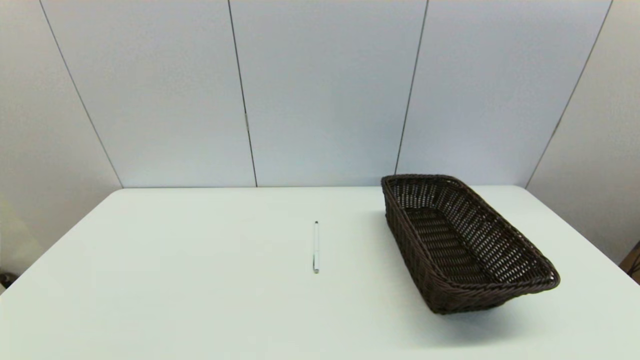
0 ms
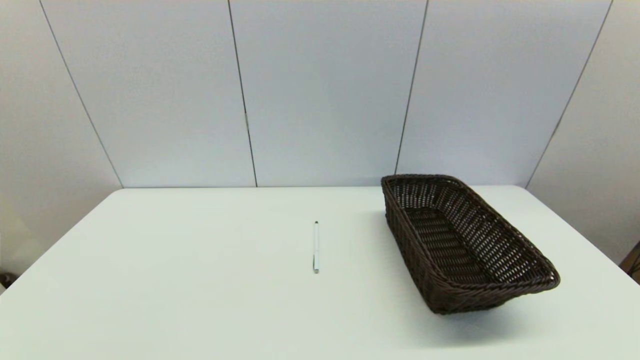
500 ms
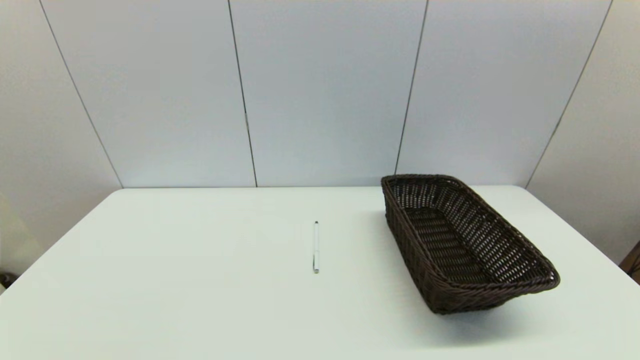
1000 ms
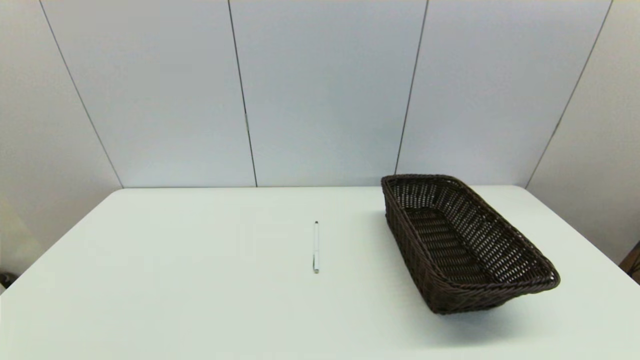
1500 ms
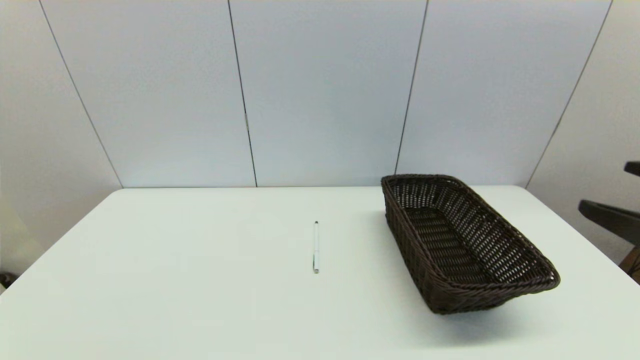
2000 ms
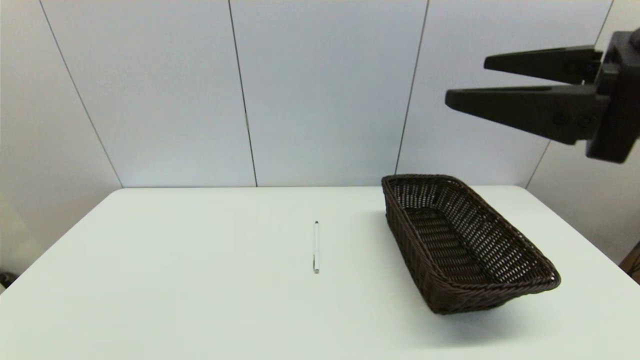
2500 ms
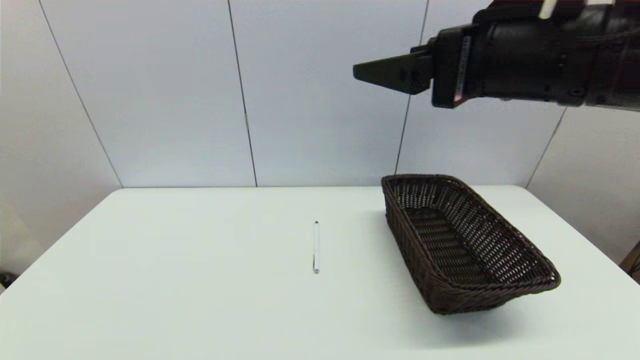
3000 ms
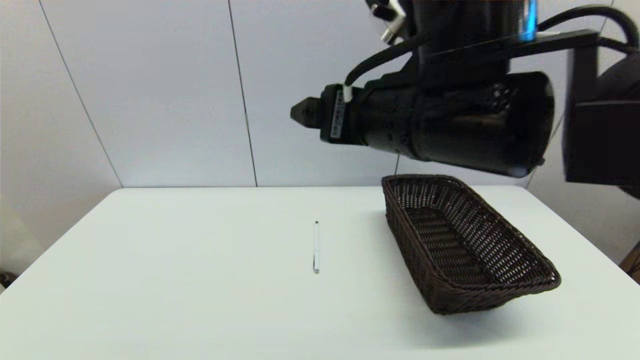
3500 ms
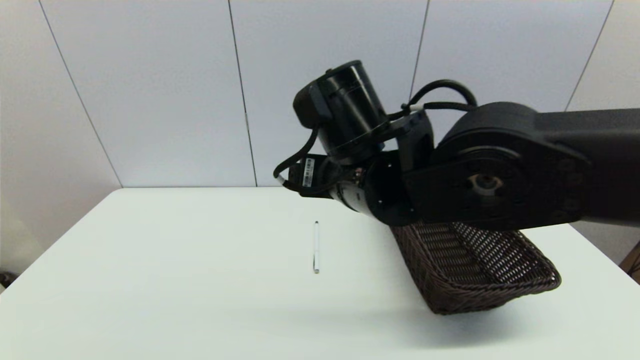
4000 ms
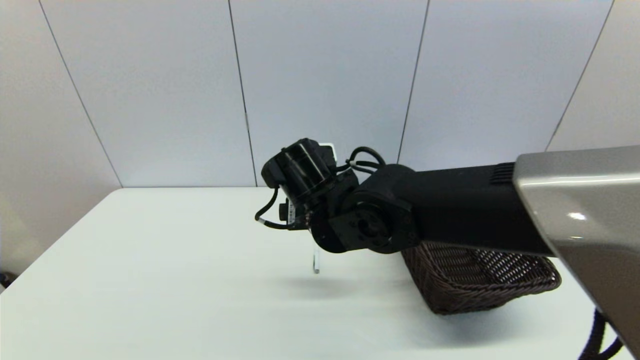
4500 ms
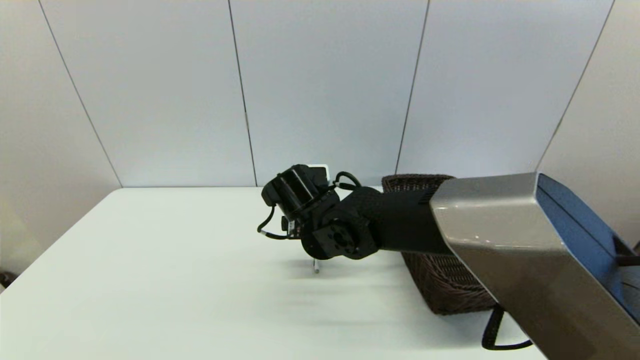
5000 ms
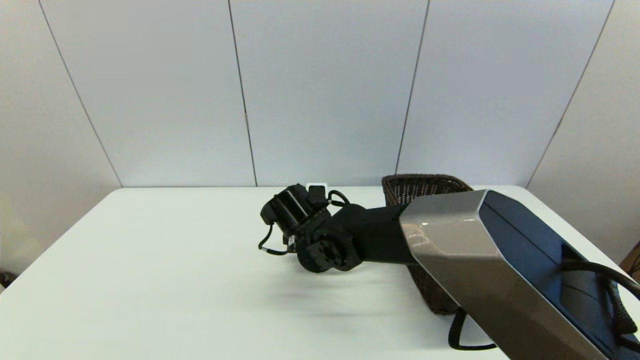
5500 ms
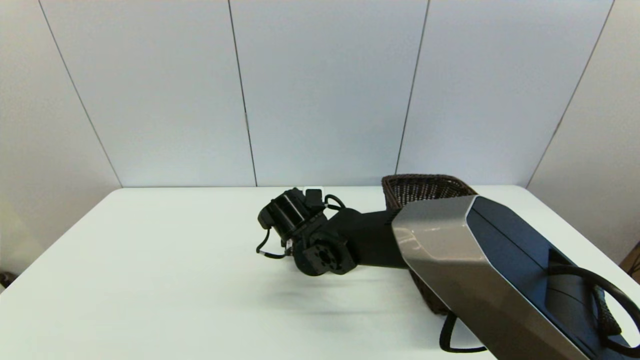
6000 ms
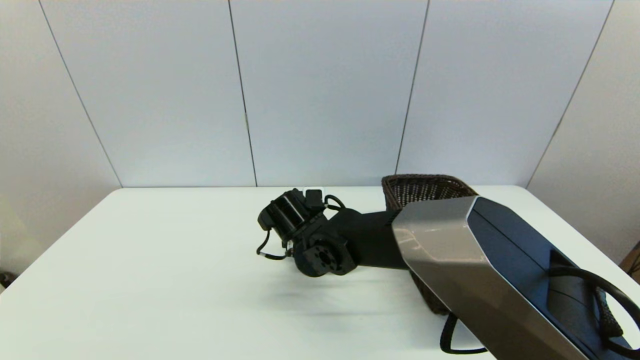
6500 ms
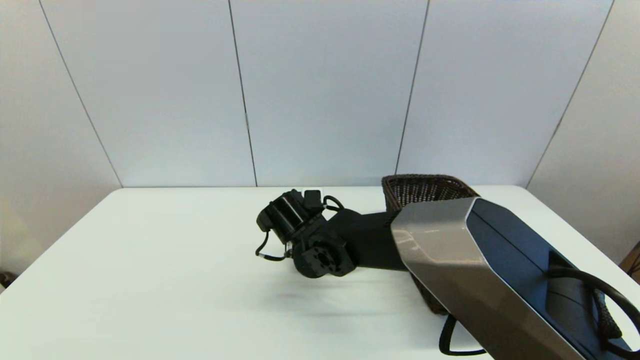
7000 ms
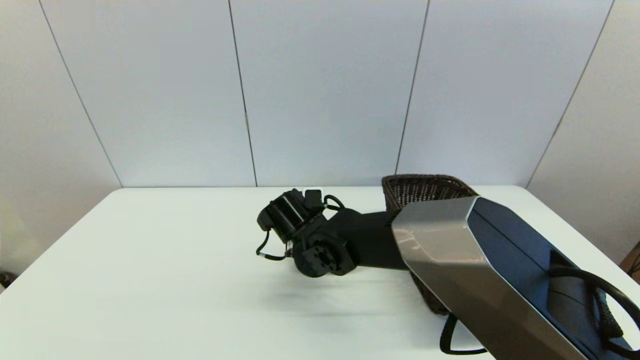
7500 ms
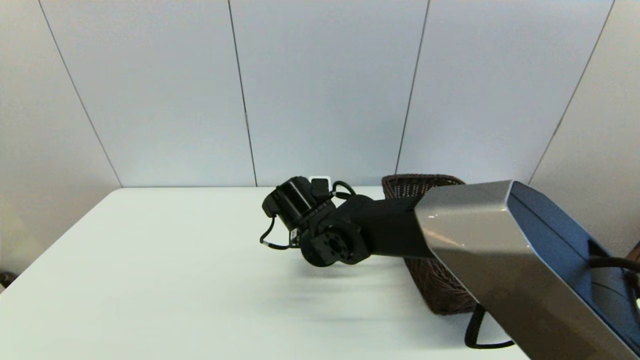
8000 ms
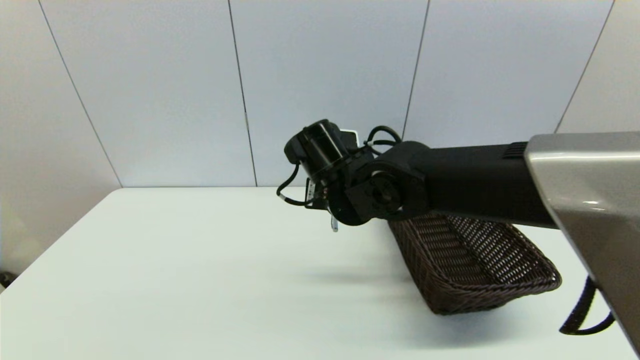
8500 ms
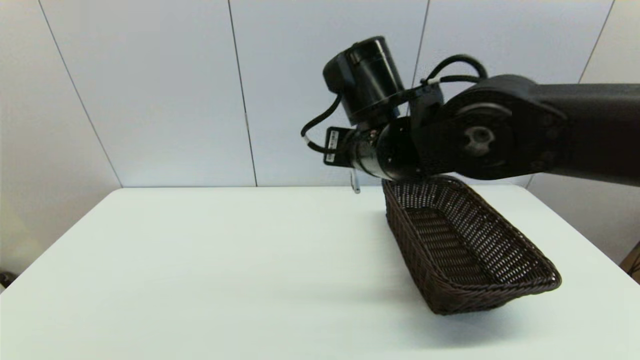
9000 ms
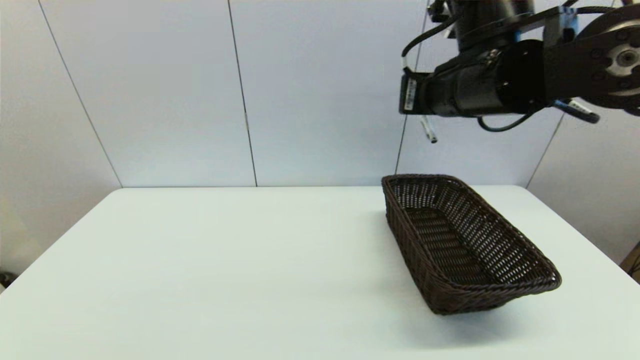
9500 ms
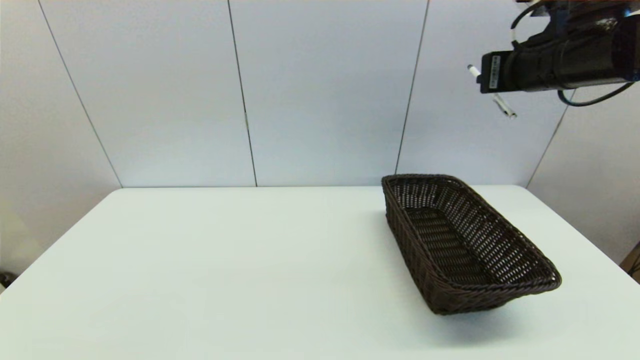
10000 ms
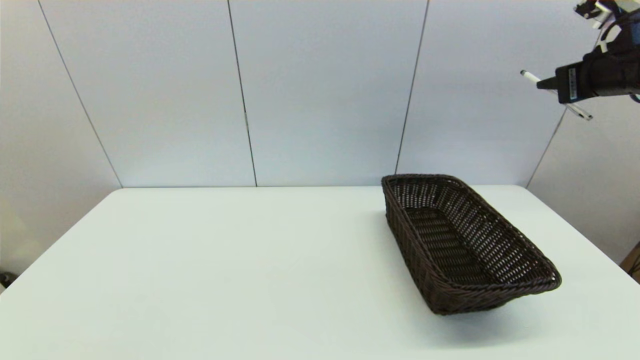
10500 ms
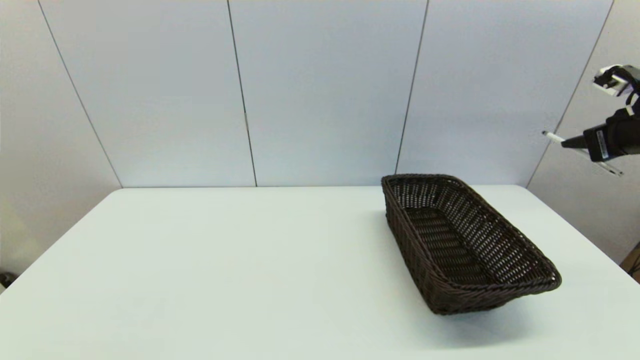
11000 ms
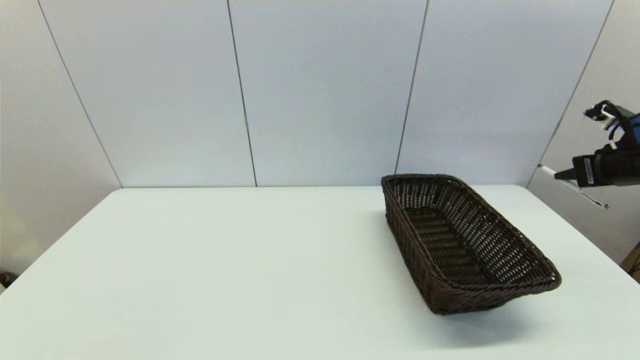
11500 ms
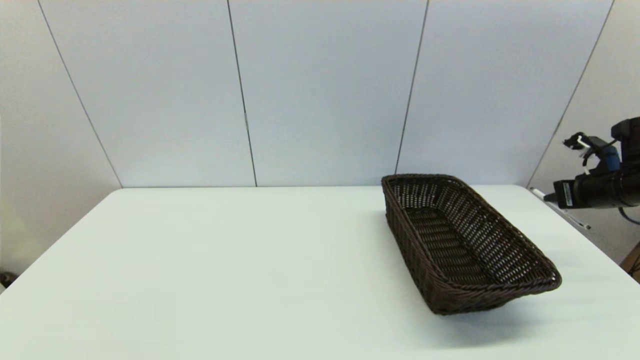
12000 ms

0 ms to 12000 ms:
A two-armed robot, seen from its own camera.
Task of the whole recording: put the pen in the designated position.
Step, 2000 ms to 7500 ms: Grasp the sign pen with right gripper.
0 ms to 2000 ms: The right gripper heads upward and forward, covering about 25 cm.
2000 ms to 4000 ms: The right gripper travels to the left and forward by some 30 cm.
4000 ms to 6000 ms: The right gripper shifts roughly 20 cm downward and forward.
6000 ms to 8000 ms: The right gripper closes up.
8000 ms to 10000 ms: The right gripper shifts roughly 35 cm to the right and upward.
10000 ms to 12000 ms: The right gripper is displaced to the right and downward by approximately 25 cm.

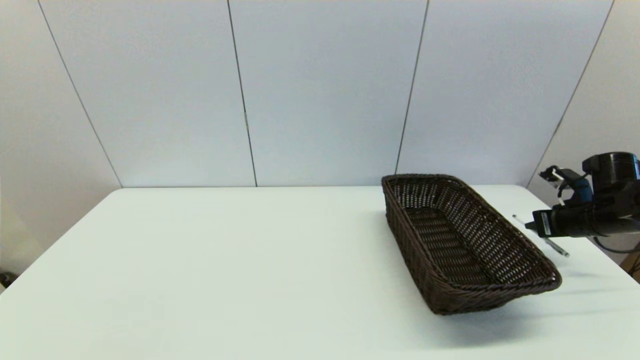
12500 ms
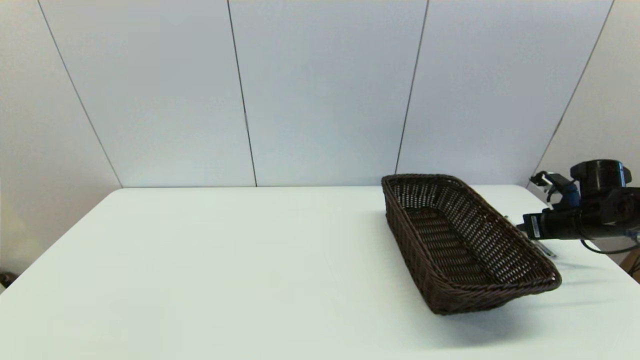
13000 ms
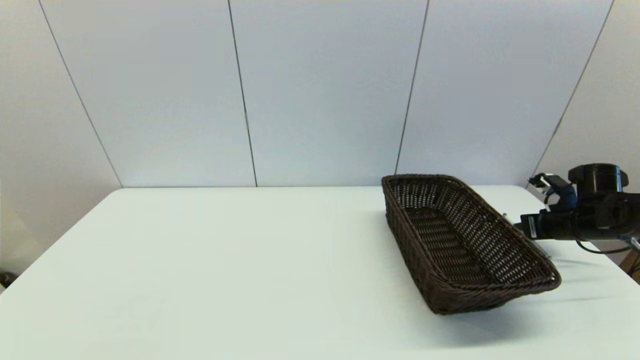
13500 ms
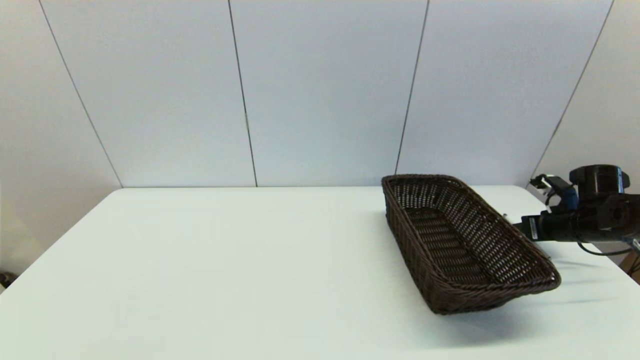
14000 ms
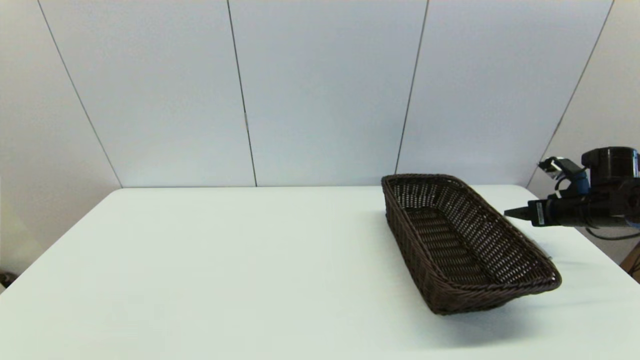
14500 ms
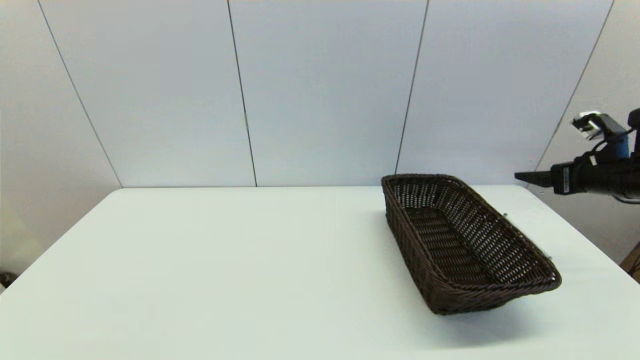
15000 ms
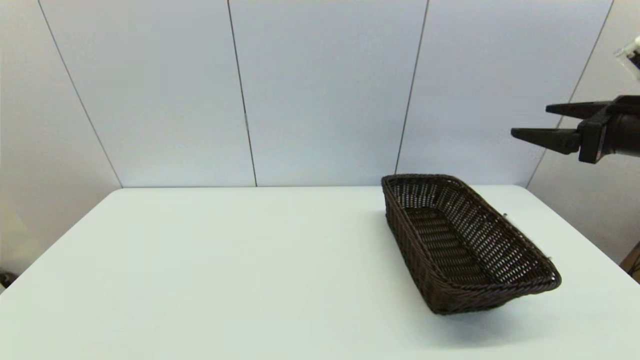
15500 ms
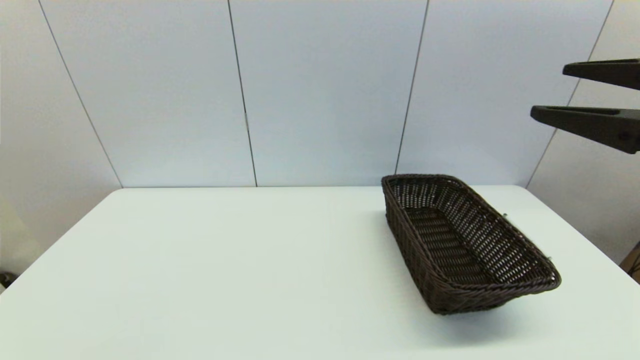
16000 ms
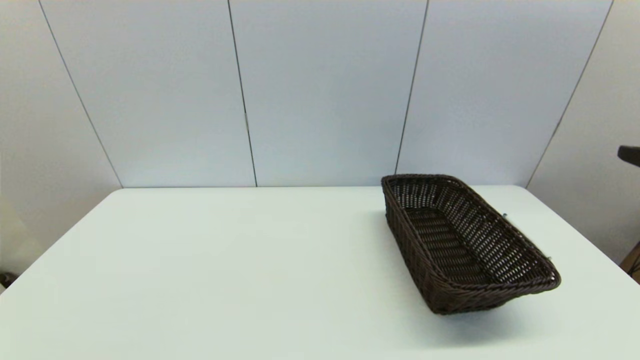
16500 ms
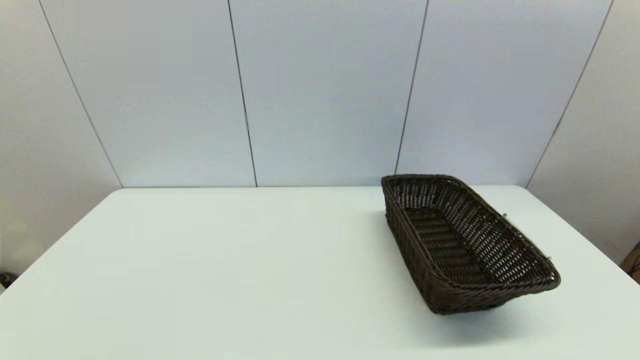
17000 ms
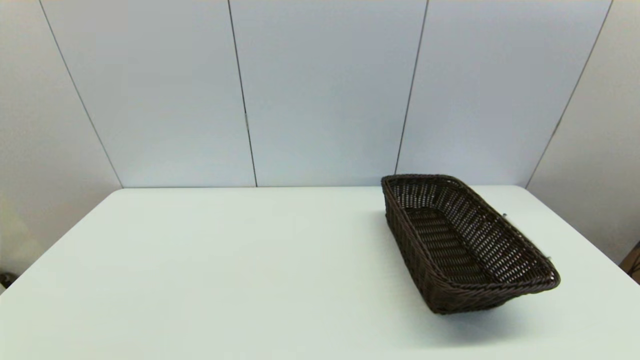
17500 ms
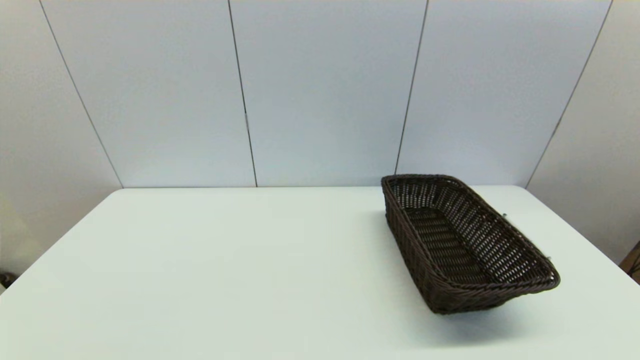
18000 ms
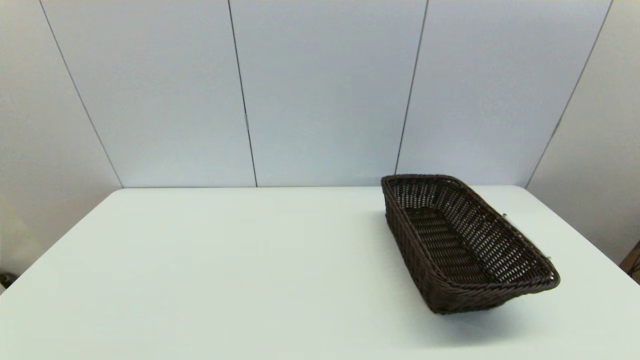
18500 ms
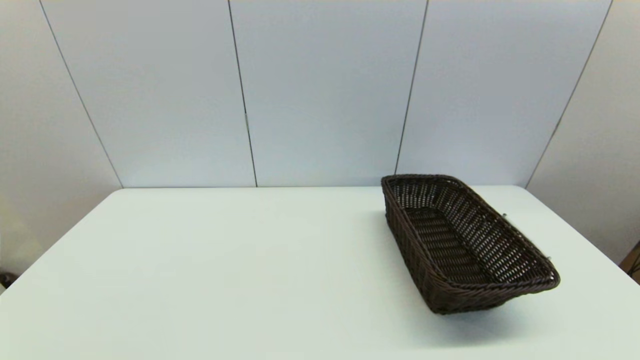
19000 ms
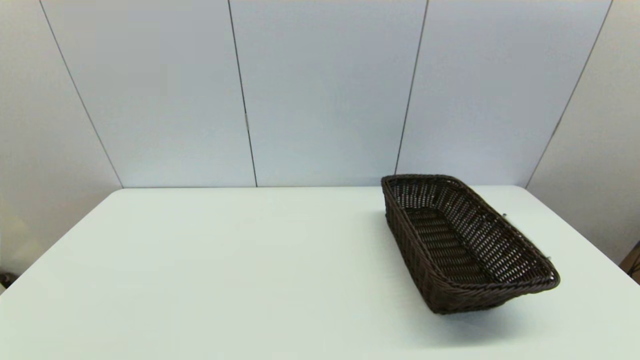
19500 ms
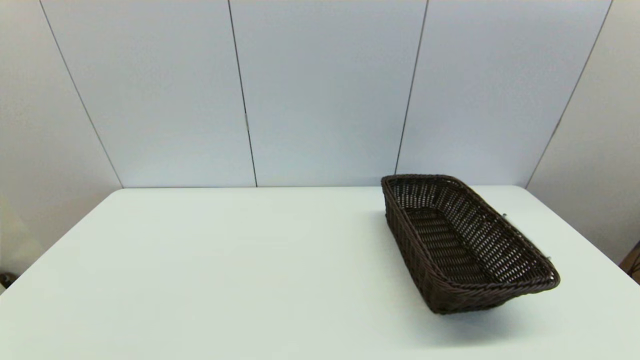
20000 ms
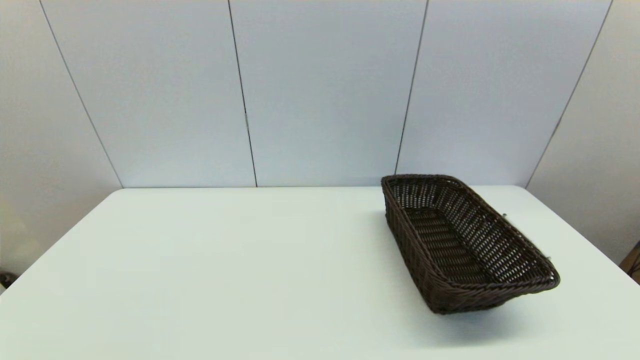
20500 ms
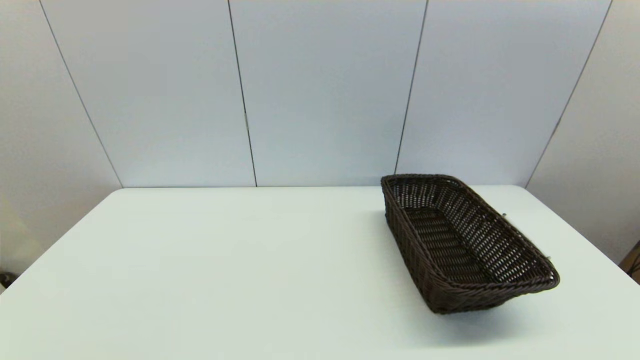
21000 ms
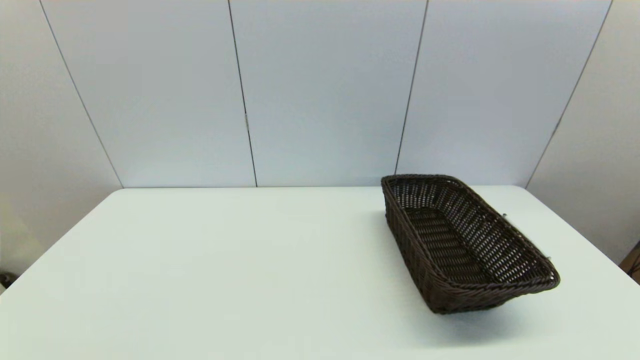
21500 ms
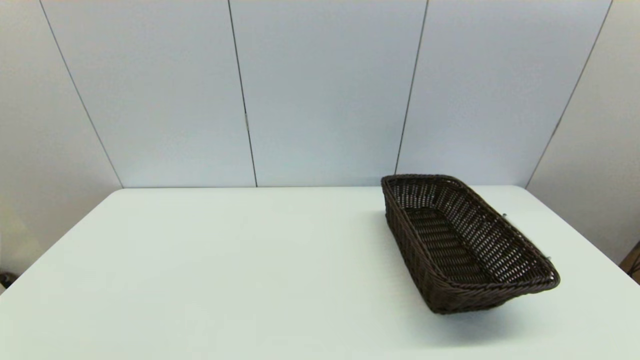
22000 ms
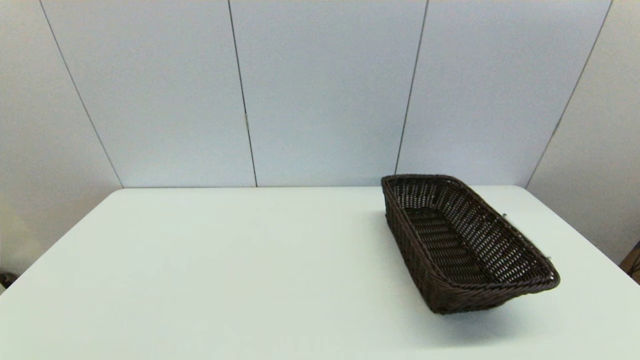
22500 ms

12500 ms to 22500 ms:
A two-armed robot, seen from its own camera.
Task of the whole recording: put the pen in the designated position.
12500 ms to 14500 ms: The right gripper opens its fingers.
14500 ms to 16500 ms: The right gripper heads backward, upward and to the left, covering some 35 cm.
20500 ms to 22500 ms: Both grippers stay put.
